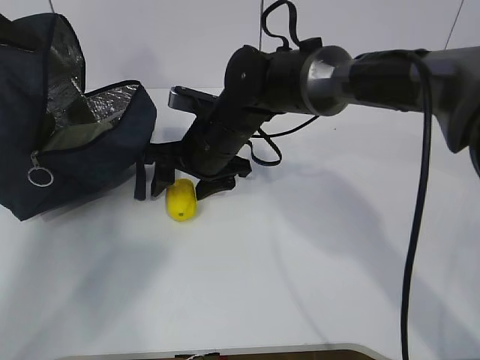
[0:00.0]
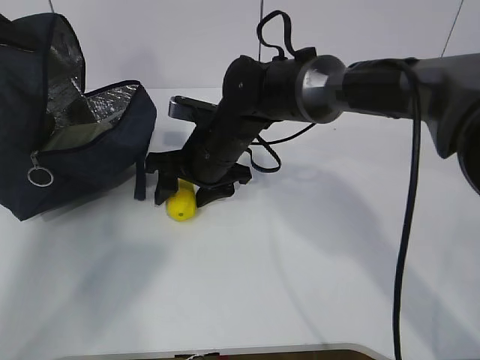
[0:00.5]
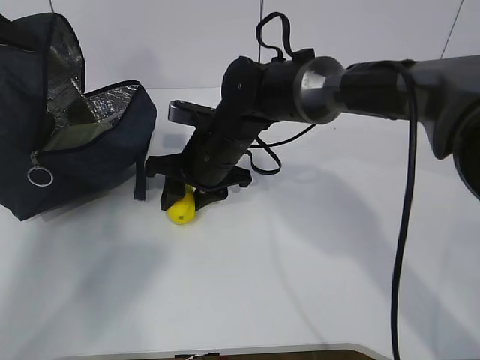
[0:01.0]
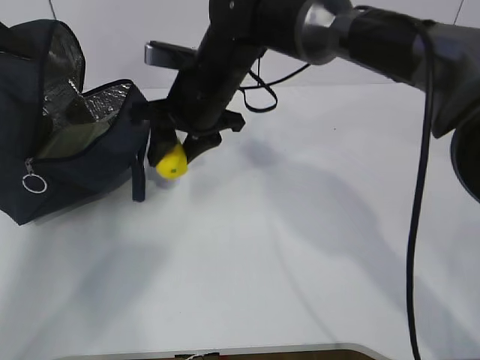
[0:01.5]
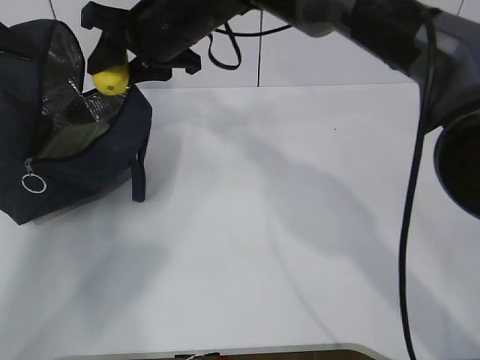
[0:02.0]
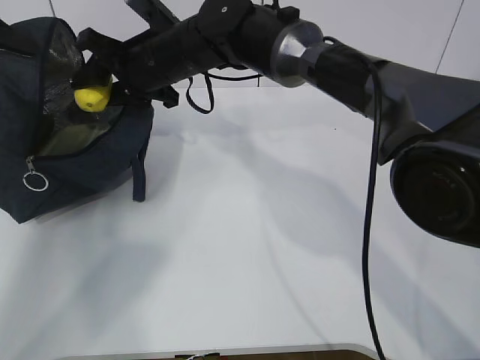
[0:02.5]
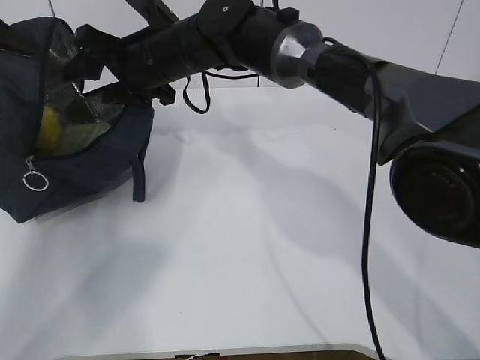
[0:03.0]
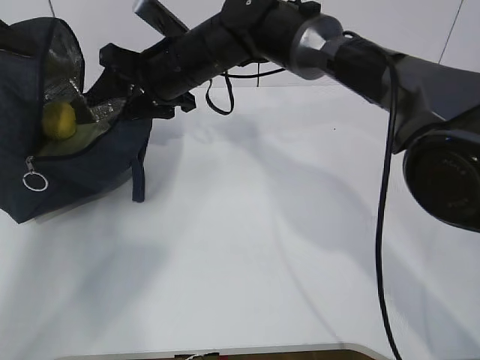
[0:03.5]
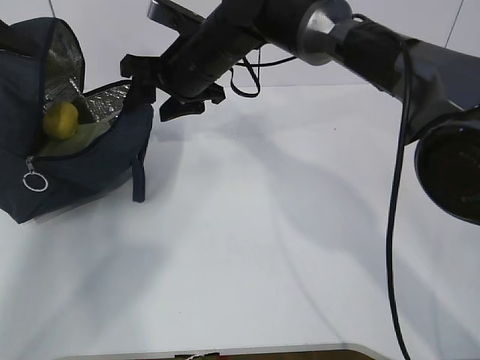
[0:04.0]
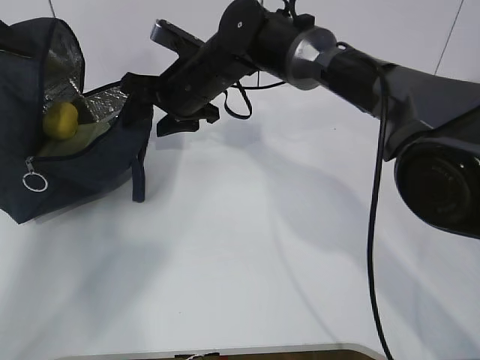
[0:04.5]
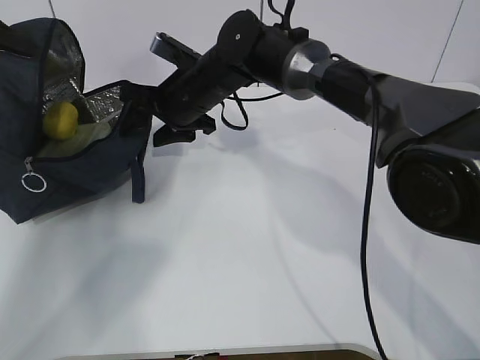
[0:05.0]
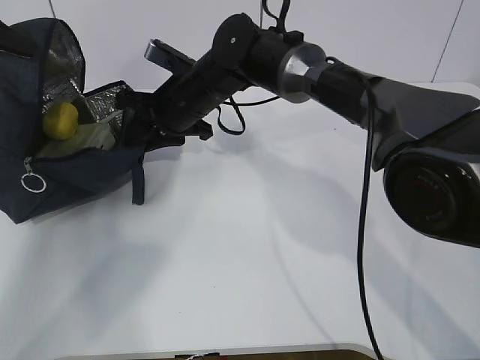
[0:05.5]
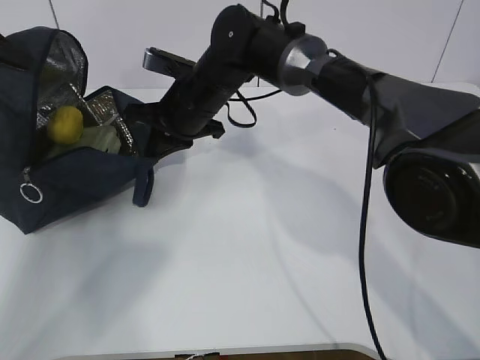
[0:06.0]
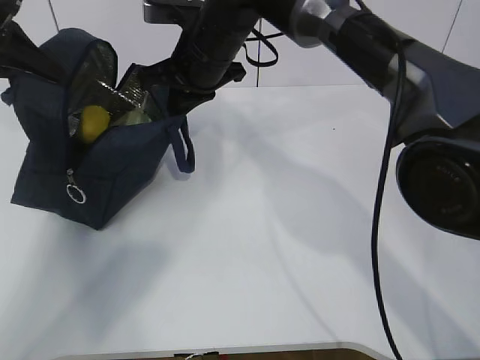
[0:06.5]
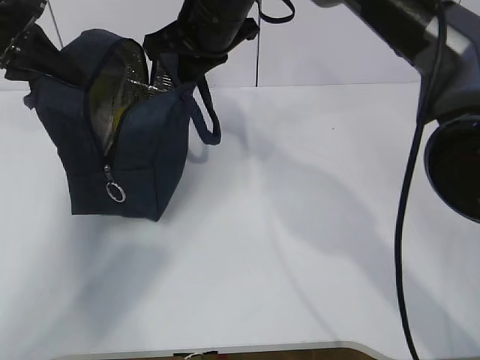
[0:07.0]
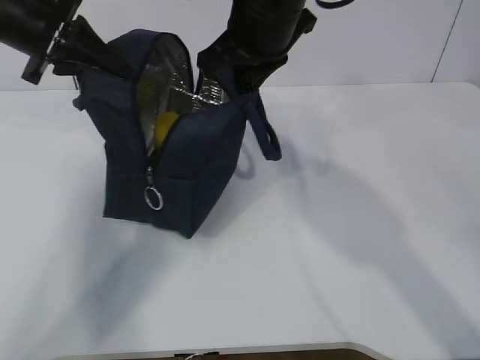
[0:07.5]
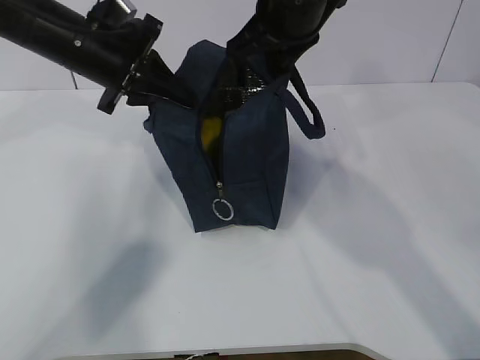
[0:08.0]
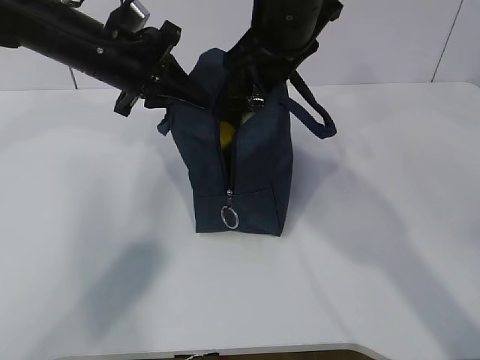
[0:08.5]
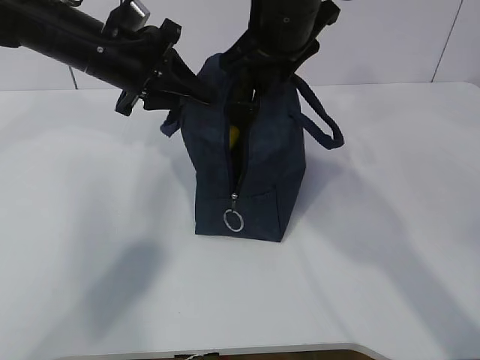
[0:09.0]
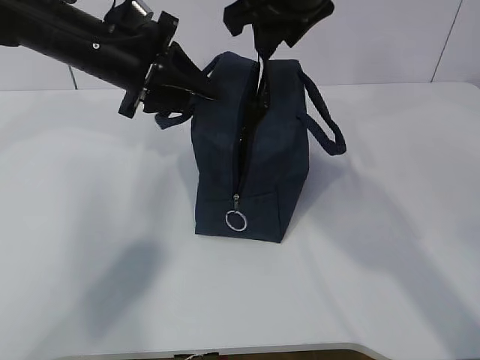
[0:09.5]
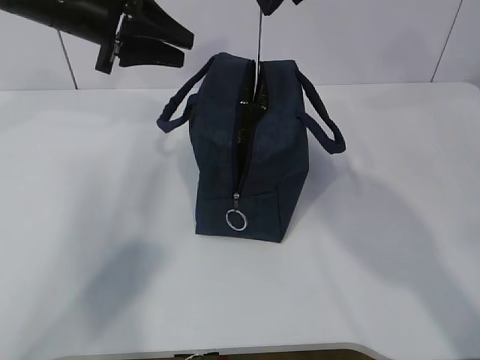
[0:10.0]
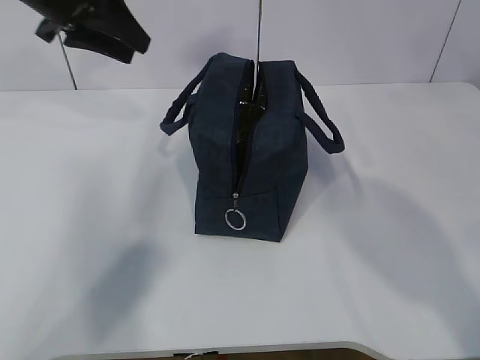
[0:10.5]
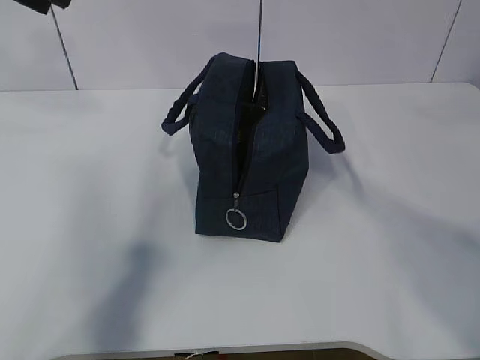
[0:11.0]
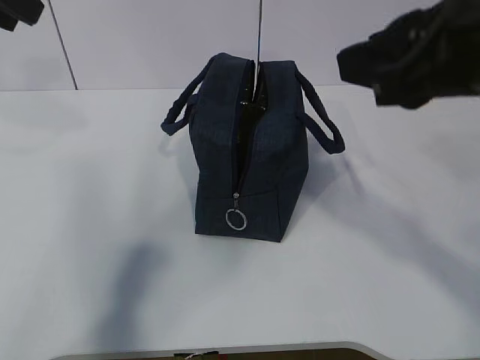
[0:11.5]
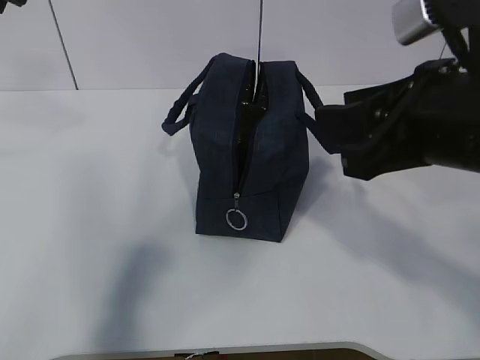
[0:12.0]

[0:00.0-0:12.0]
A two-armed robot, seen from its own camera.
Step, 0:00.0 to 0:03.0: Move the lunch bag to the right.
0:00.0 to 0:02.0: The right gripper goes roughly 15 cm upward, and closes.
0:02.0 to 0:04.0: The right gripper is displaced downward by roughly 5 cm.
0:04.0 to 0:06.0: The right gripper closes its fingers.
0:06.0 to 0:08.0: The left gripper moves to the right, about 20 cm. The right gripper moves upward, to the right and backward, approximately 20 cm.
0:08.0 to 0:10.0: The right gripper shifts roughly 5 cm upward, and opens; the left gripper opens its fingers.
0:10.0 to 0:12.0: The right gripper moves backward, downward and to the right, about 20 cm, while the left gripper shifts roughly 20 cm backward, upward and to the left.

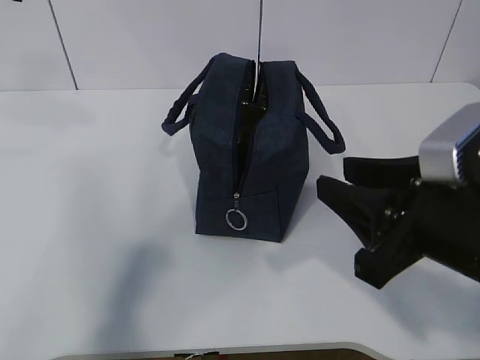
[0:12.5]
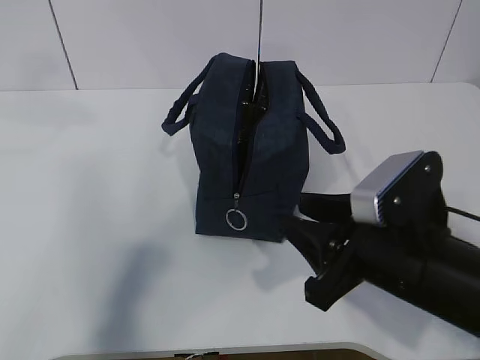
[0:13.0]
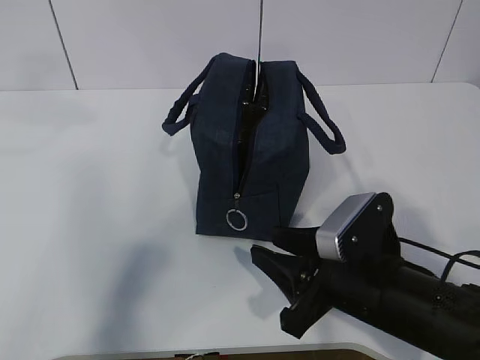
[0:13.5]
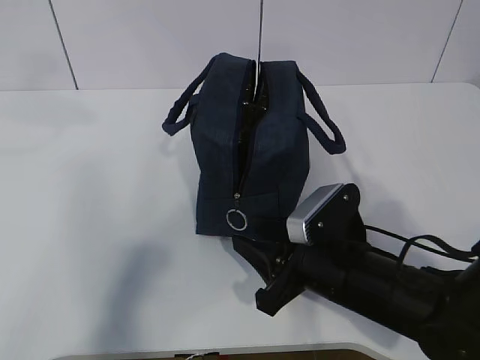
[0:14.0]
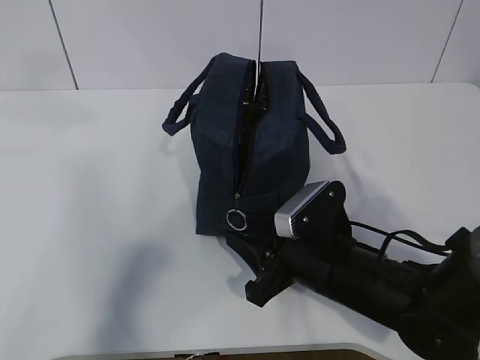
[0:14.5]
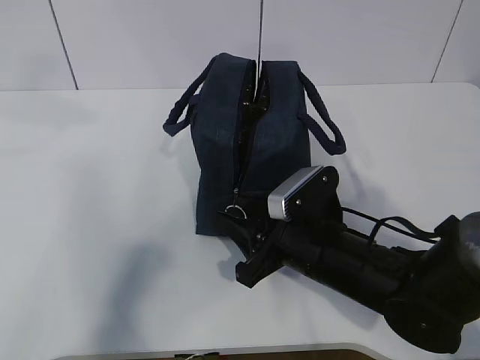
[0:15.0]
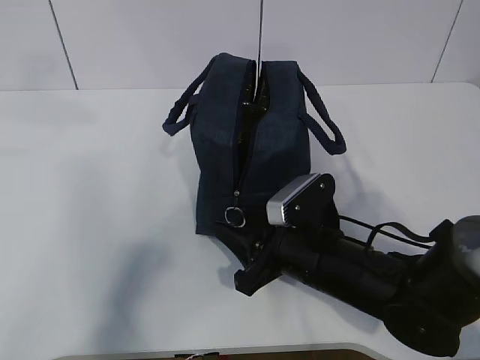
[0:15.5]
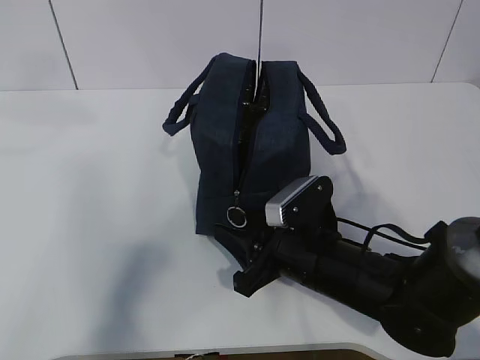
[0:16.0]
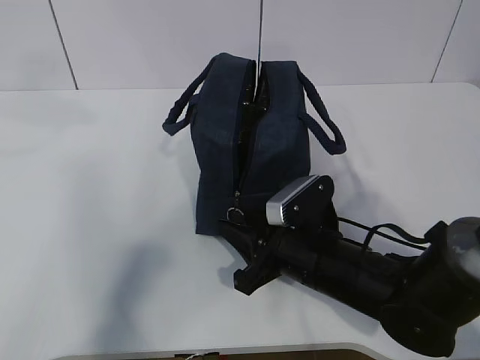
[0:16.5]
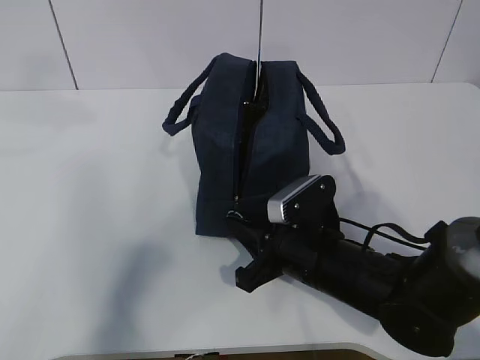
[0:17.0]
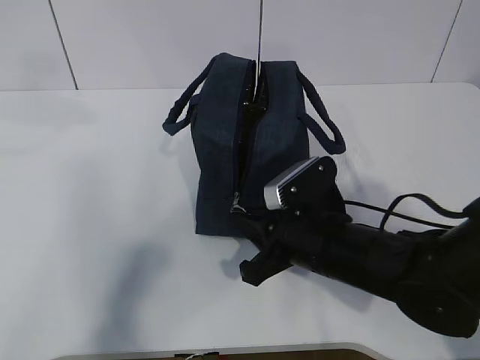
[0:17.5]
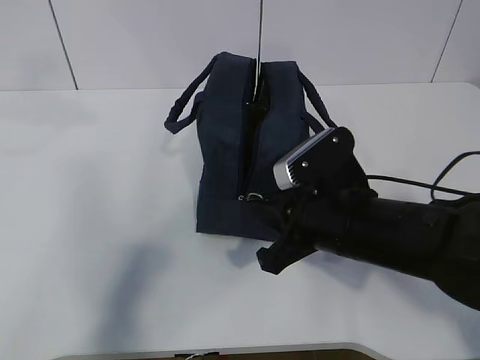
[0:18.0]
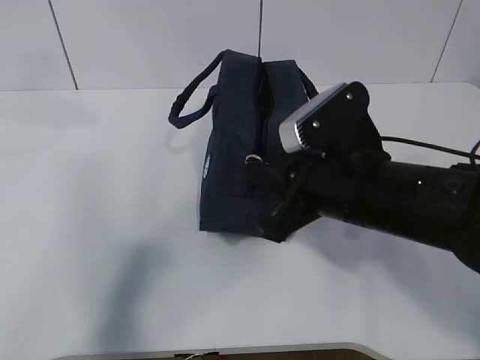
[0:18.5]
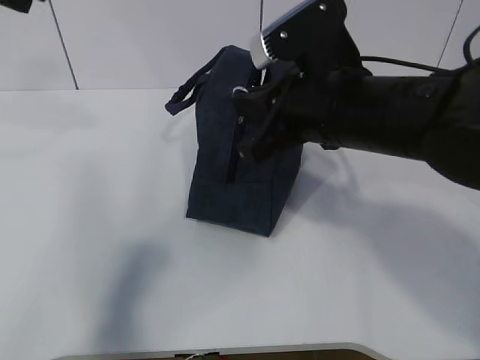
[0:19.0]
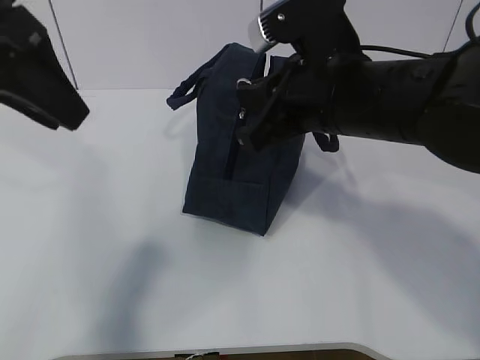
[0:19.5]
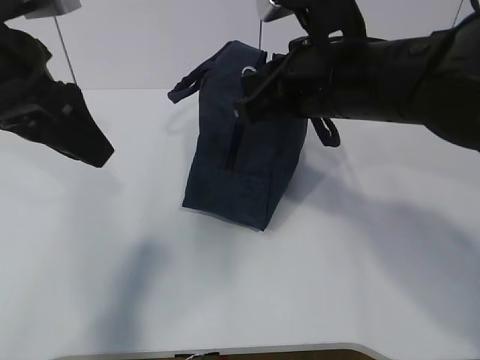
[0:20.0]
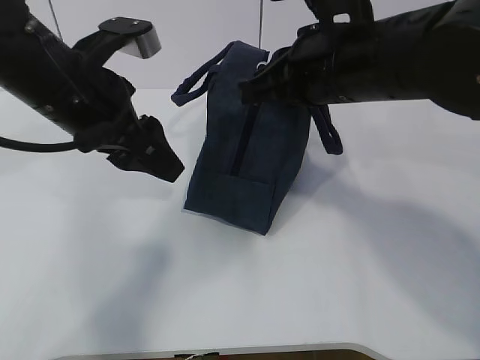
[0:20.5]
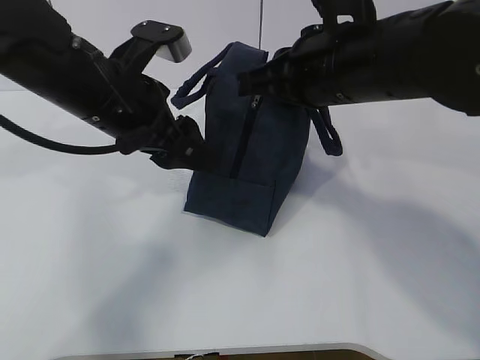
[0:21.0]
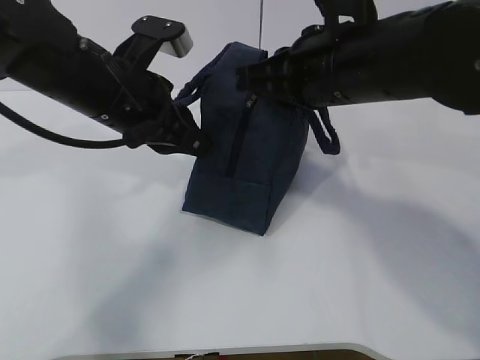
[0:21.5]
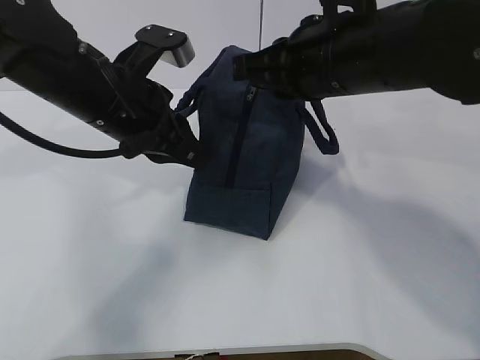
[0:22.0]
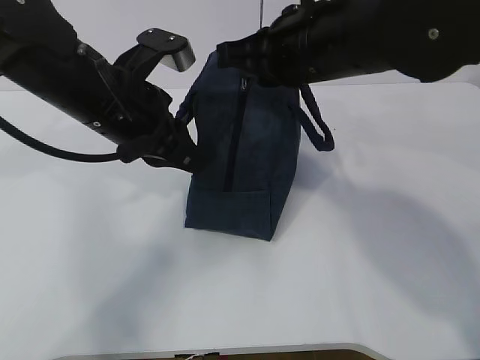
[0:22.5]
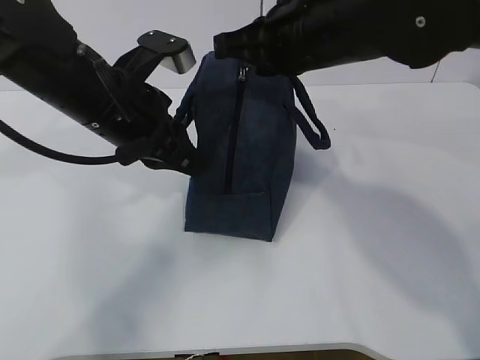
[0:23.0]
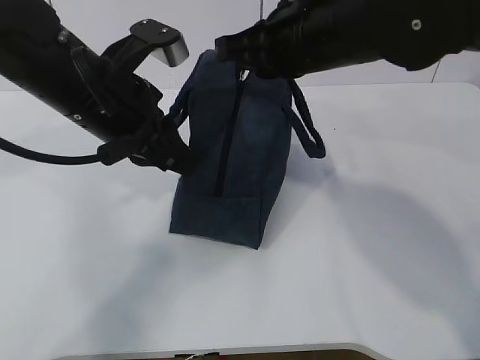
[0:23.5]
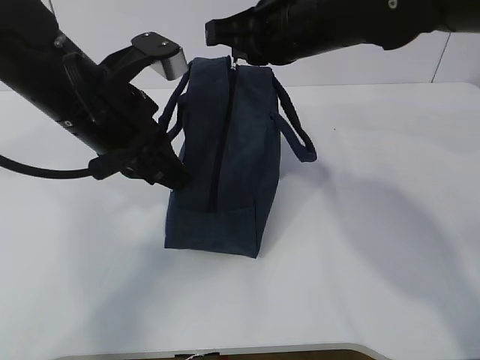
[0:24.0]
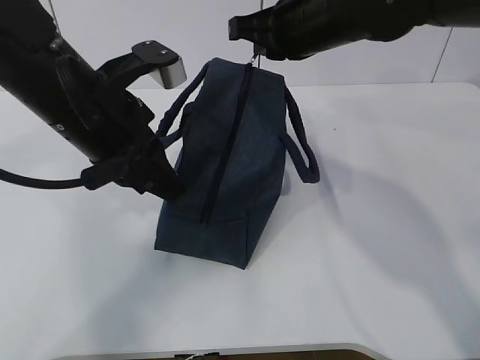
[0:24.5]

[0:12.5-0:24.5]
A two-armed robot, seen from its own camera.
Step, 0:12.5 to 0:20.0: Grab the lunch bag with your left hand.
Step, 0:20.5 to 0:22.5: Pull the zipper with your right hand.
0:12.5 to 0:14.5: The right gripper shifts some 15 cm downward, forward and to the left.
0:14.5 to 0:16.5: The grippers move only a little.
0:16.5 to 0:18.5: The right gripper goes approximately 10 cm upward, and closes its fingers.
0:18.5 to 0:20.5: The right gripper goes some 10 cm upward and forward, while the left gripper goes roughly 20 cm downward and to the right, and opens.
0:20.5 to 0:22.5: The left gripper closes.
0:22.5 to 0:24.5: The right gripper is displaced forward by roughly 5 cm.

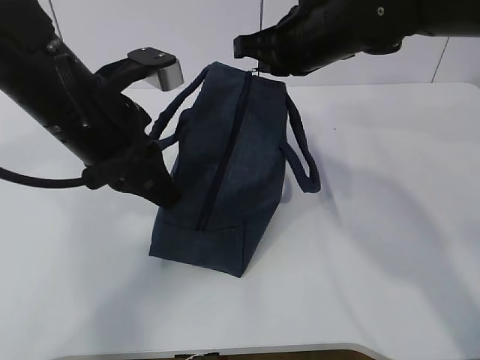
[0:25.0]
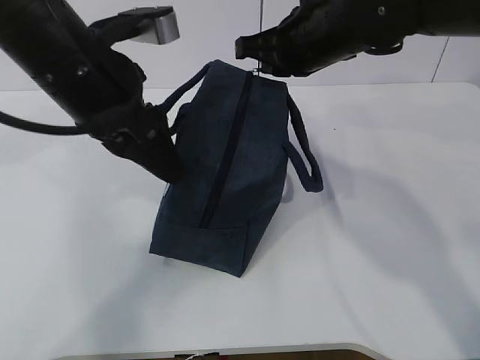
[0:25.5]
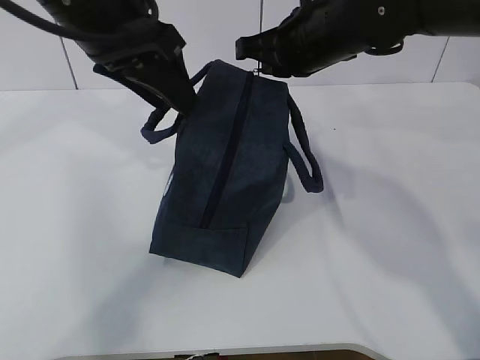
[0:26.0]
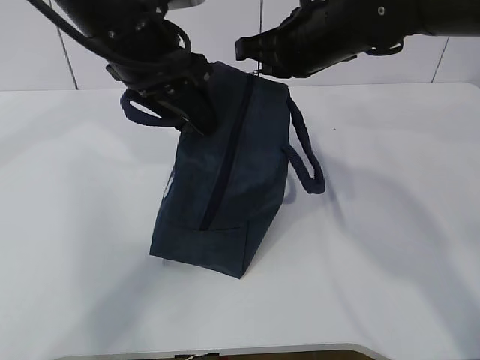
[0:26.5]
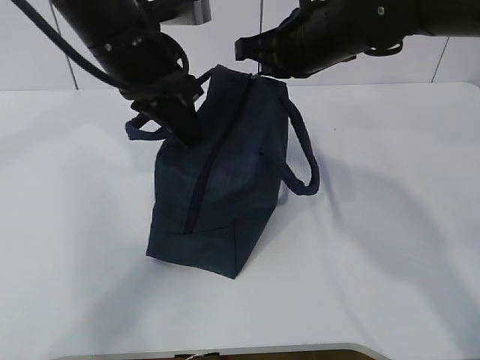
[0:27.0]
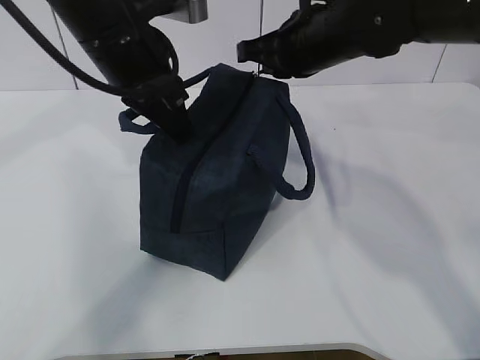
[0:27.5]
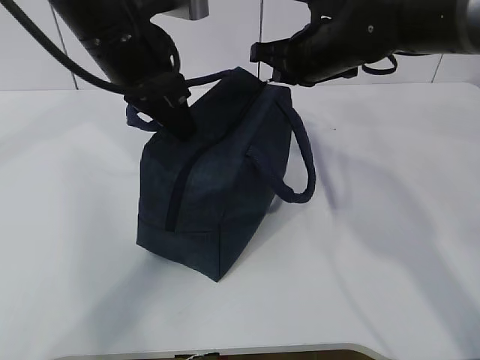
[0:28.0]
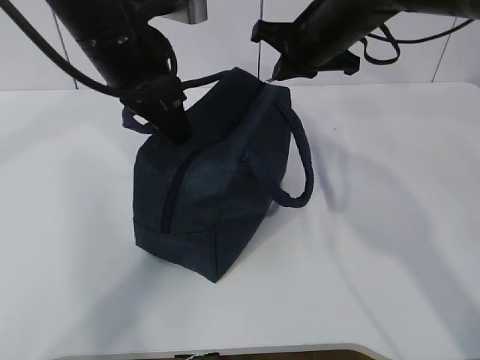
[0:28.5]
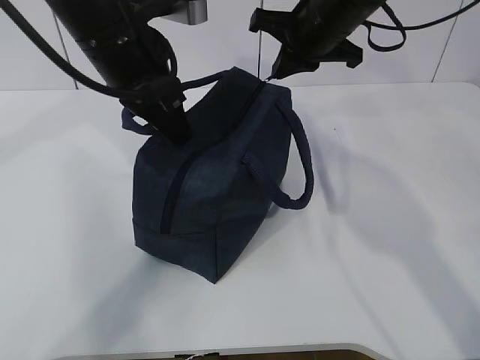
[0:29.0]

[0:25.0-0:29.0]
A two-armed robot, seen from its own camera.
0:25.0 to 0:27.0: The left gripper travels forward by roughly 5 cm, and opens and closes again.
